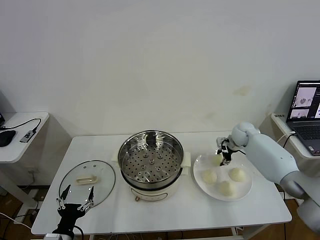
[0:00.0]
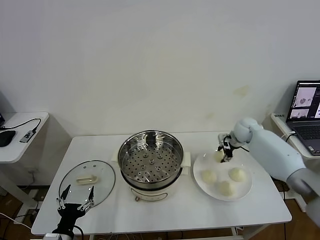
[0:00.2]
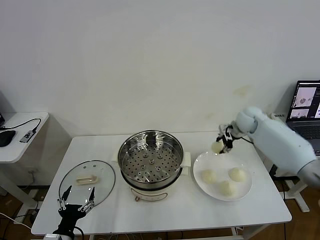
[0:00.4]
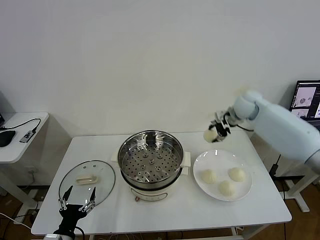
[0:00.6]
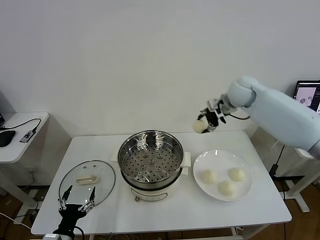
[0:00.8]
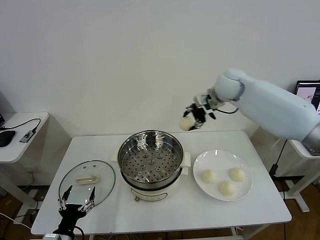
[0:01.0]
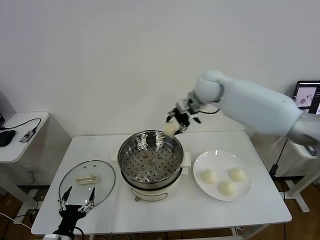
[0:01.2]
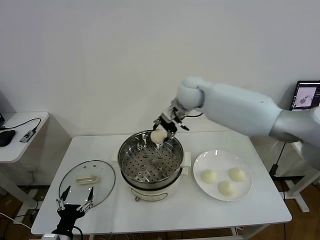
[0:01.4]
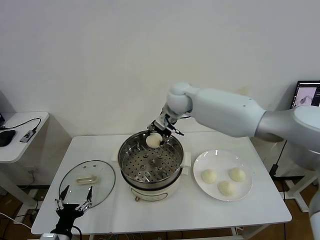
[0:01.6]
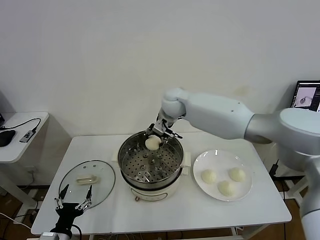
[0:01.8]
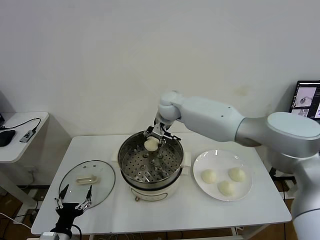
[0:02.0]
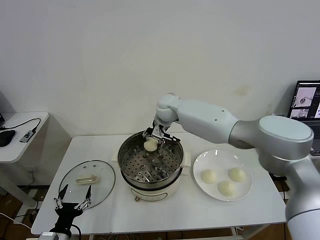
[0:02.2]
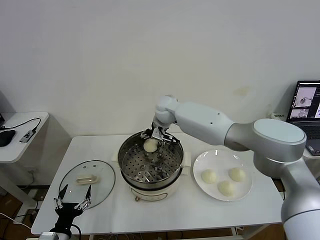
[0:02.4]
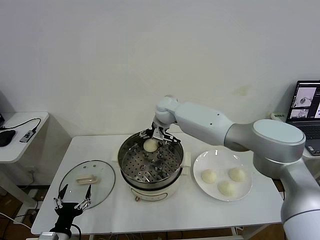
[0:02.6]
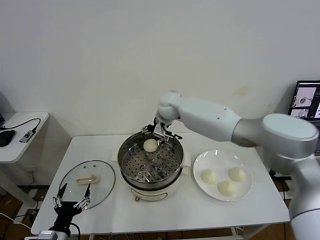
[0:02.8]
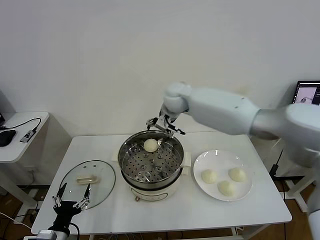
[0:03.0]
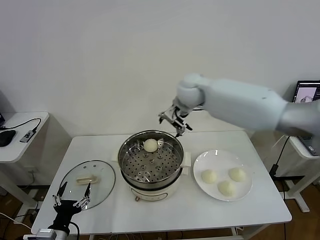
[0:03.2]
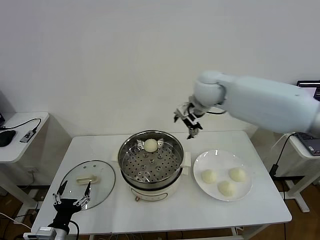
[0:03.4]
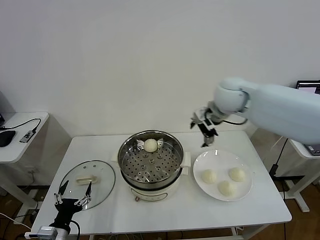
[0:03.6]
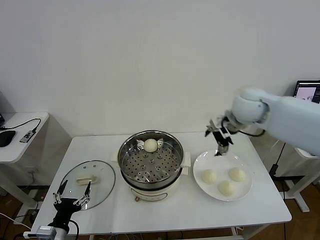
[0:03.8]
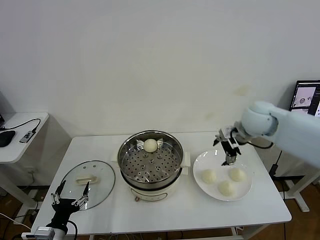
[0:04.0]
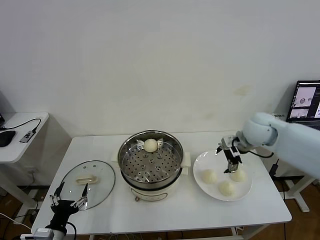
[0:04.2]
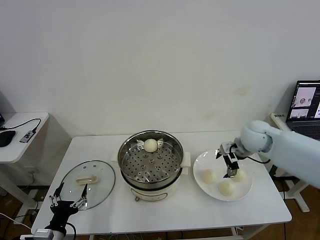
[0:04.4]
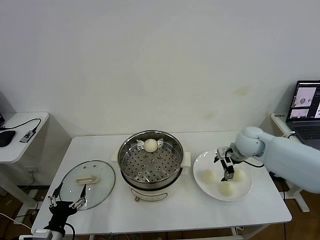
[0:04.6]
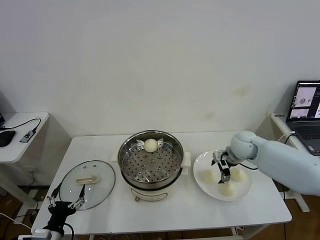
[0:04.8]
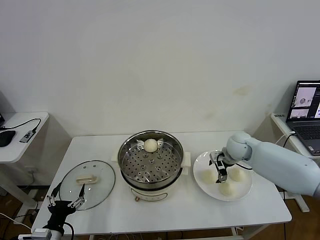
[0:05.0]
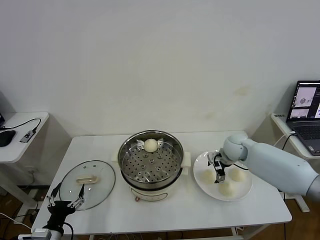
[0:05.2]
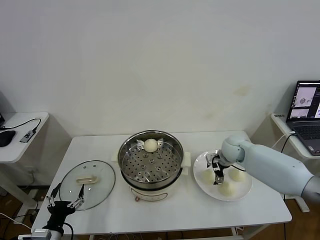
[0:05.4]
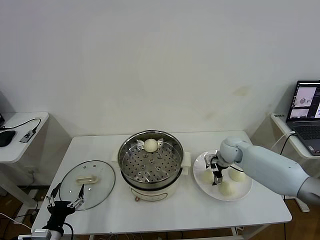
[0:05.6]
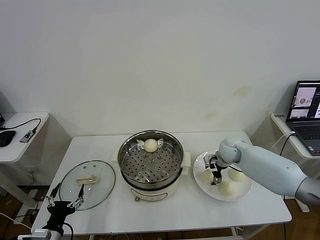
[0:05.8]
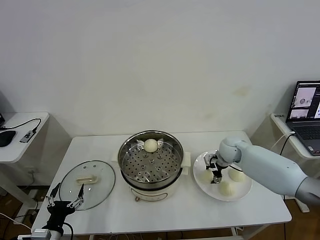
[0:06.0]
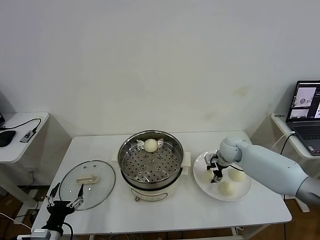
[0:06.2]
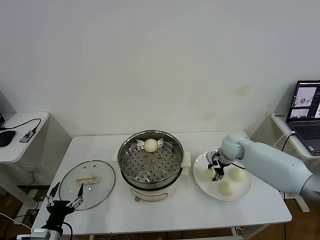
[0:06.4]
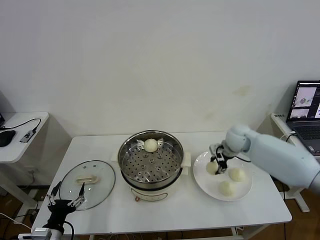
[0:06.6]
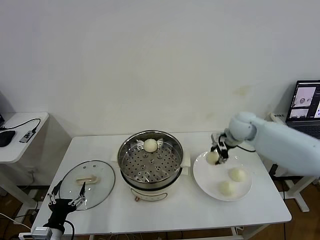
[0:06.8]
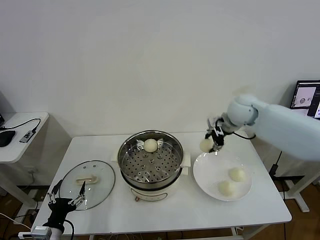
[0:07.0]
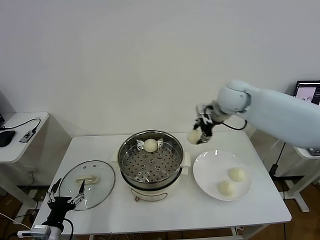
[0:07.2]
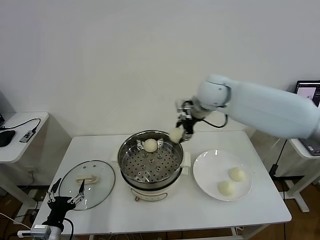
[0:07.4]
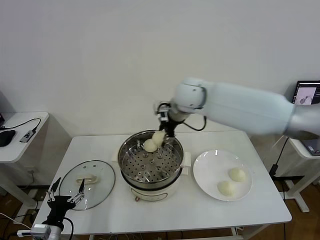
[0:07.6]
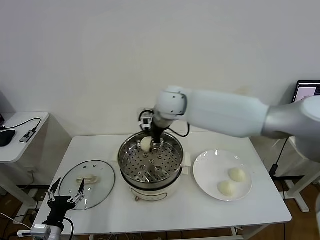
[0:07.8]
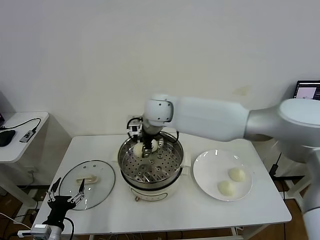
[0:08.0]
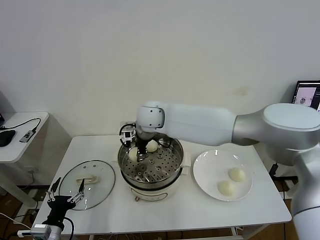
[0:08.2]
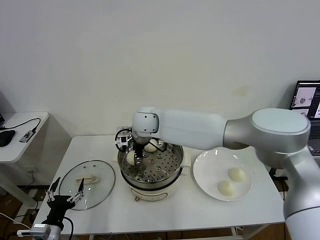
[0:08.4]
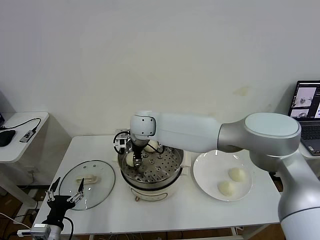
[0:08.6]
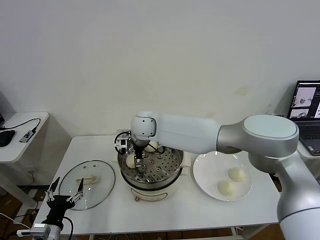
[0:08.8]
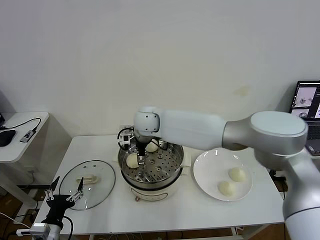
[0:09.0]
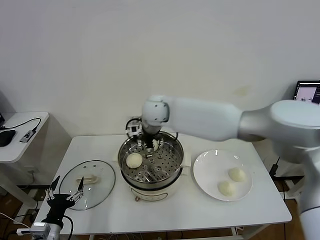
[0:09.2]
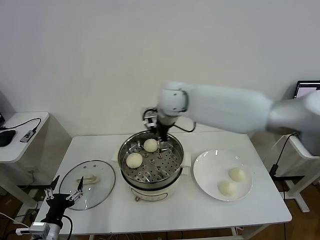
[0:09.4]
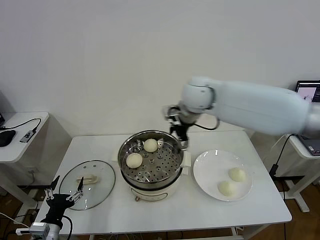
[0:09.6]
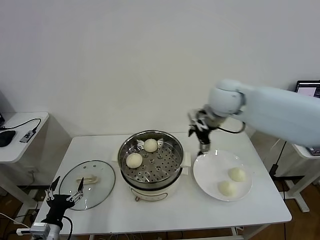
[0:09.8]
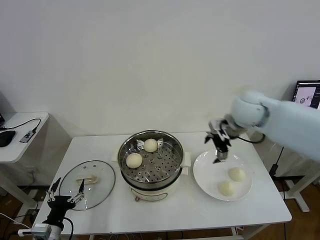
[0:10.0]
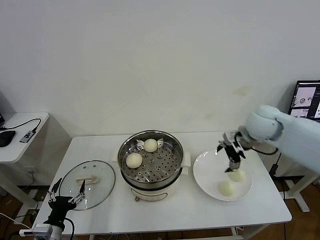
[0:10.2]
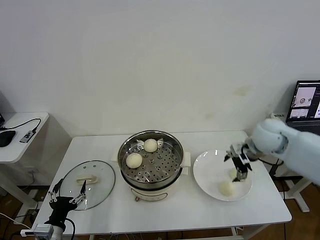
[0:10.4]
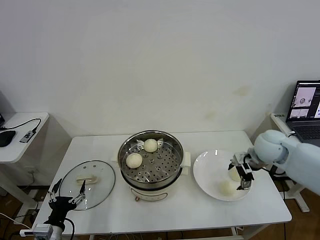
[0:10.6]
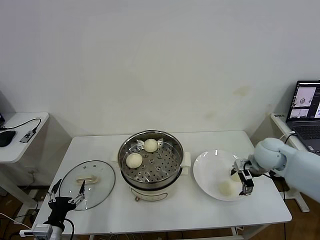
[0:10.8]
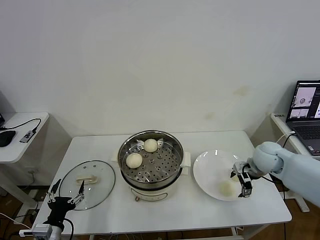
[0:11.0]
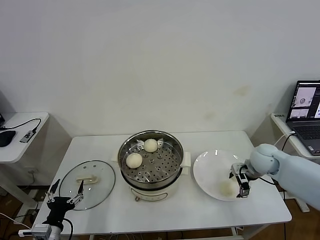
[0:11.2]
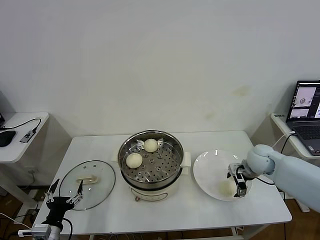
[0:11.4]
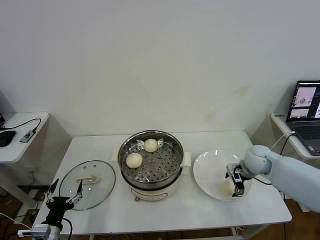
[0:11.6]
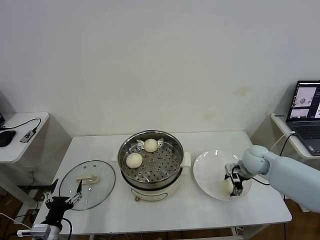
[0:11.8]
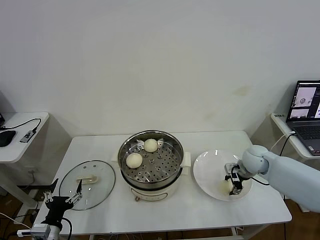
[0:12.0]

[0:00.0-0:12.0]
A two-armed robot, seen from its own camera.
Task of the whole recording: take steamed baozi put them in steamer then cover it.
Step, 0:00.0 to 0:02.6: Place the baozi on the steamer with right gripper.
Step, 0:02.8 to 0:06.2: Grasp the baozi in the plate with right gripper.
Step, 0:06.4 to 0:09.0: Place the baozi on the steamer with right gripper.
0:00.0 to 0:01.6: The right gripper shifts roughly 35 cm to the left and upward.
0:01.6 to 0:03.0: The right gripper travels downward and back again, approximately 5 cm each way, and opens its fingers.
0:03.0 to 0:04.4: The right gripper is displaced to the right and downward by approximately 25 cm.
0:04.4 to 0:06.0: The right gripper travels downward by approximately 10 cm, and closes.
0:06.0 to 0:07.6: The right gripper is displaced upward and to the left by some 30 cm.
0:07.6 to 0:09.0: The right gripper moves to the left and downward, about 10 cm, and opens its fingers.
0:09.0 to 0:10.4: The right gripper heads to the right, covering some 35 cm.
0:10.4 to 0:12.0: The right gripper heads downward, covering some 10 cm, and closes its fingers.

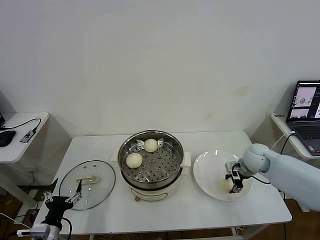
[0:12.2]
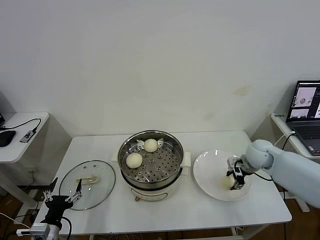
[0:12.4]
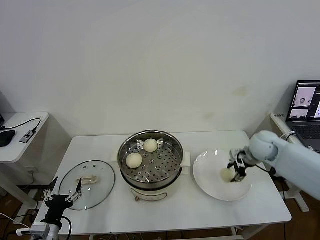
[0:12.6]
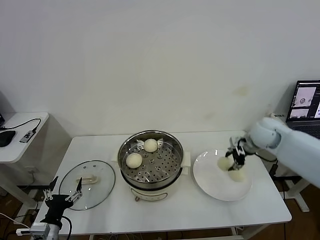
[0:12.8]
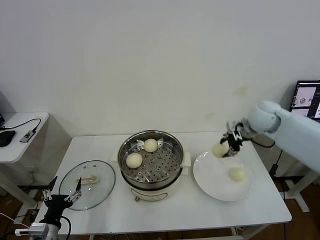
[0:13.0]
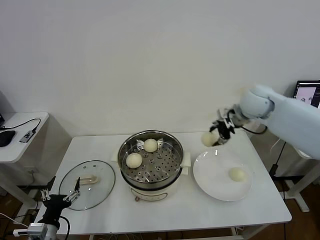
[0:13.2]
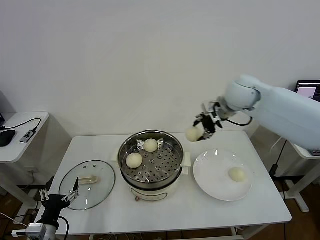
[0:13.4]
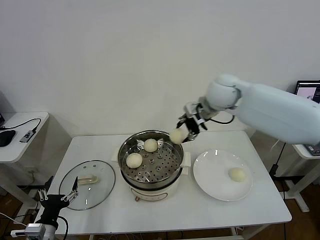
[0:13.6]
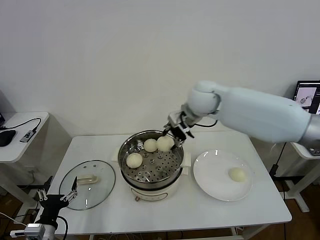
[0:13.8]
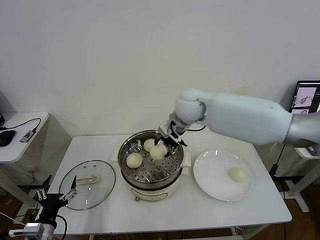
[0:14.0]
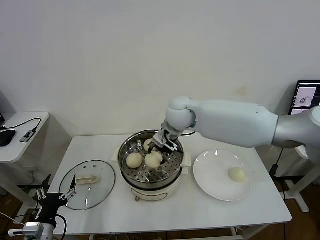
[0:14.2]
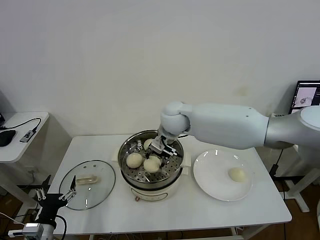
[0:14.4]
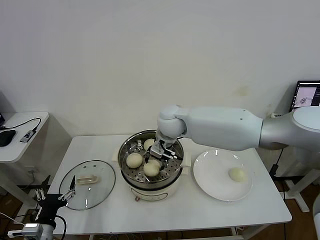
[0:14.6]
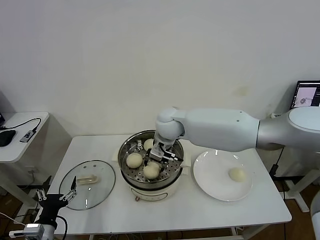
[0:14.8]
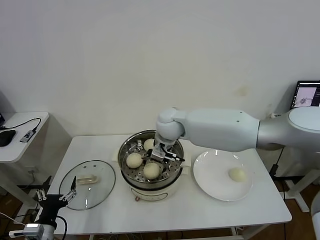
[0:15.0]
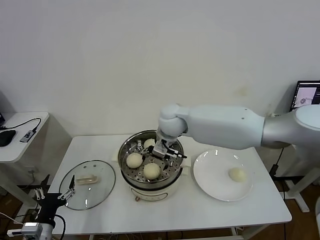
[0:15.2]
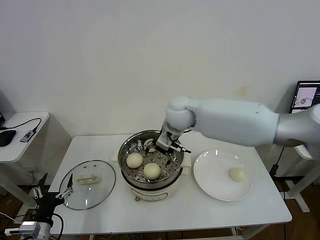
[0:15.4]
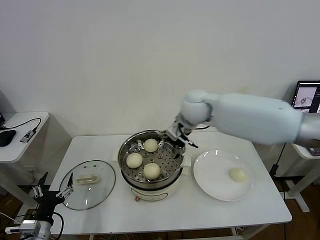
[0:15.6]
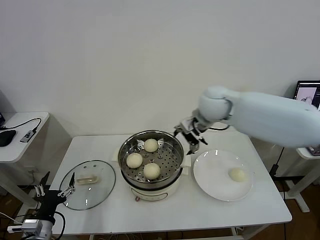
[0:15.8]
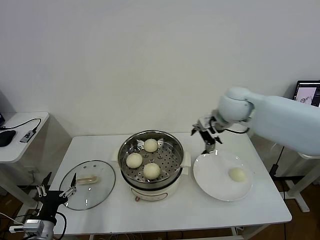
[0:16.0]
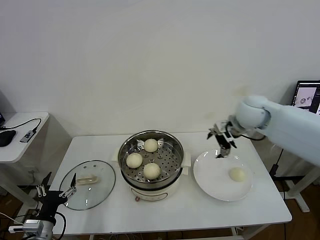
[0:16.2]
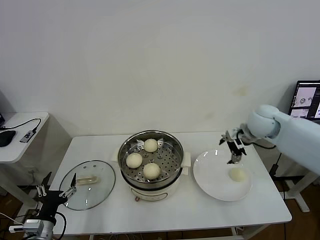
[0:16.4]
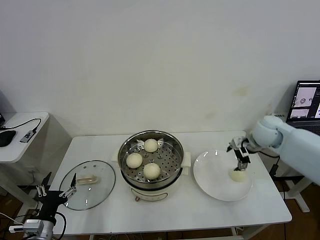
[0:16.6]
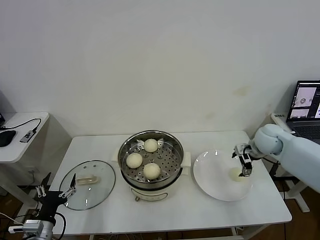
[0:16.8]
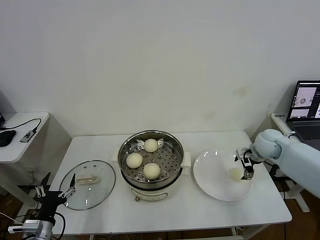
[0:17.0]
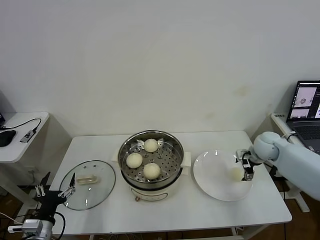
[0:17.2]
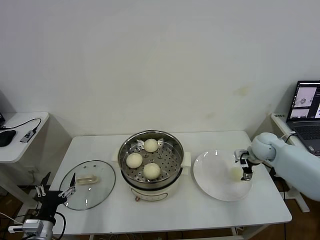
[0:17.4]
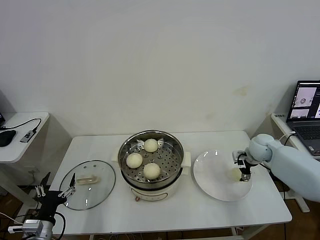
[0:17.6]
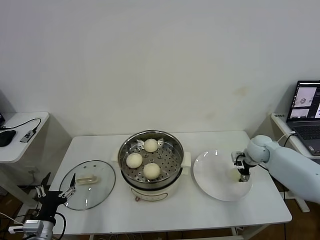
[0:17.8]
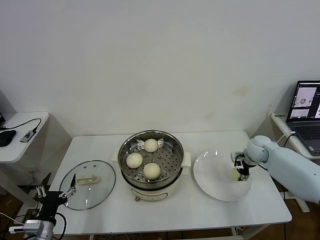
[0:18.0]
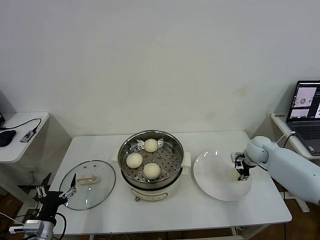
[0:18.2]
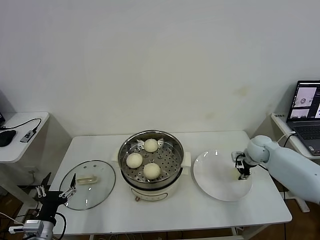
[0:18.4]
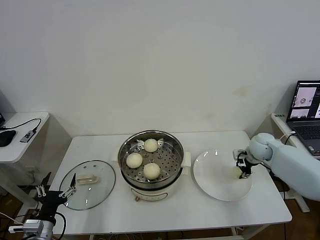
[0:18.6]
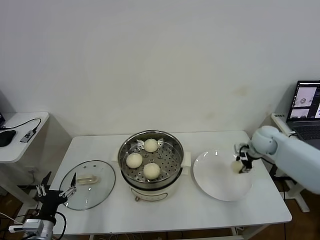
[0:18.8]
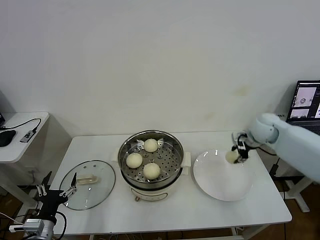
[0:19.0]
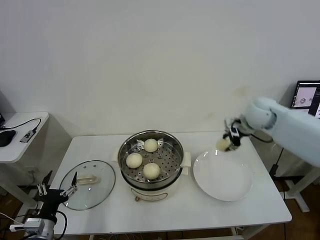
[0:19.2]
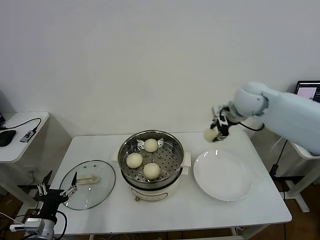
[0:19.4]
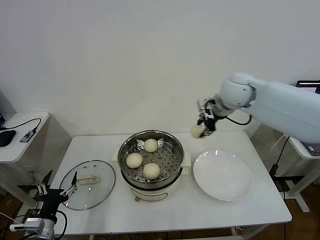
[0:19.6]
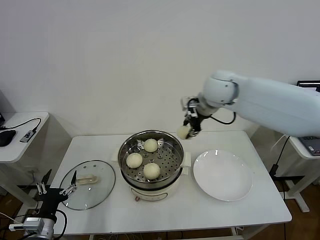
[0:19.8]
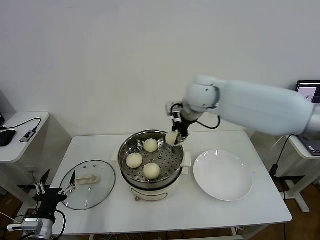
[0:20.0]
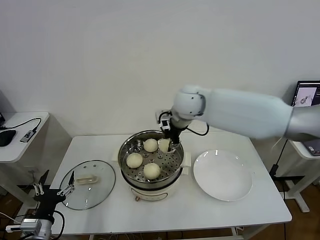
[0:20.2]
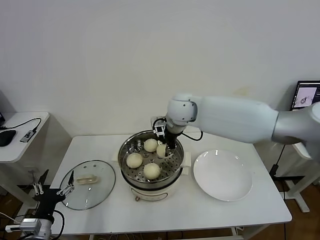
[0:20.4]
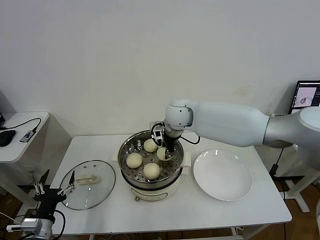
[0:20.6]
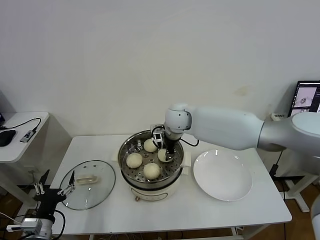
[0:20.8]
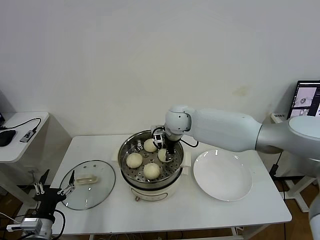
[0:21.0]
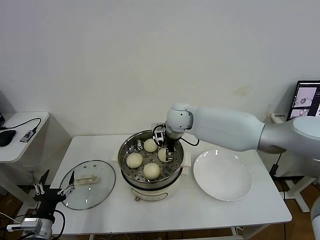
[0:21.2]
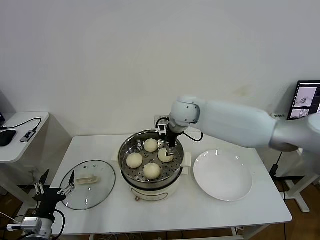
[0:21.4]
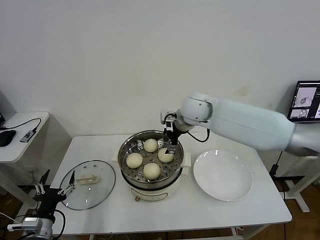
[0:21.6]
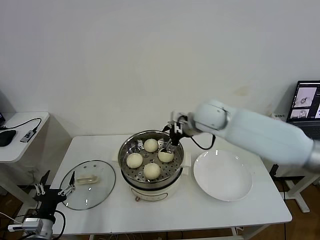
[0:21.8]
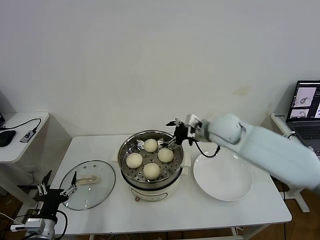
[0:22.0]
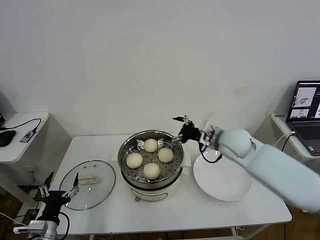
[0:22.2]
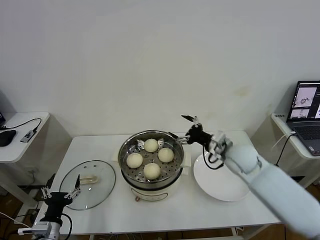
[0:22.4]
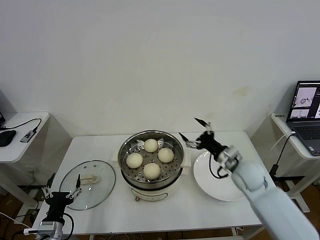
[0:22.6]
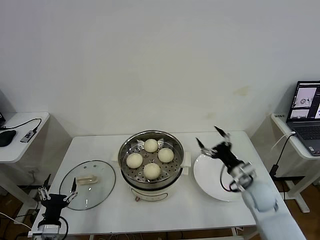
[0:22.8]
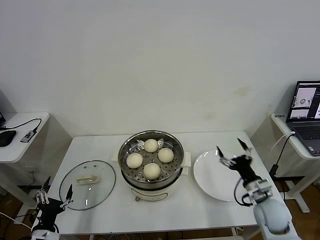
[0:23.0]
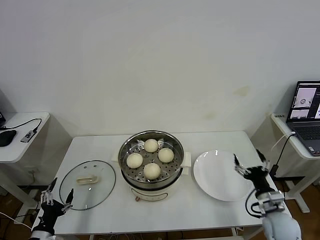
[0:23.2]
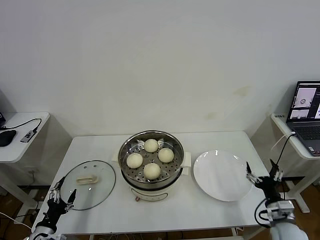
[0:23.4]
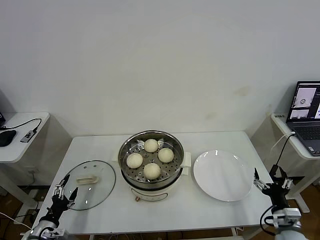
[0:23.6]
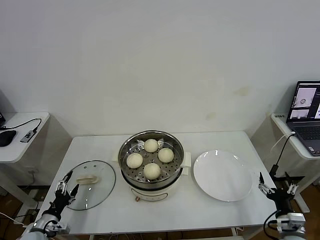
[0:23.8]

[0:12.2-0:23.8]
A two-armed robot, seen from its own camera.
Task of the whole recording: take steamed baozi put them in steamer then cover it.
Step, 0:12.4 to 0:15.4: Place the baozi on the steamer with right gripper.
Step, 0:15.6 to 0:18.6: Grasp the baozi in the plate with right gripper.
Step, 0:18.8 to 0:21.4: Place the baozi on the steamer with right gripper.
0:12.2 to 0:13.6: The right gripper moves upward and to the left, roughly 30 cm.
0:13.6 to 0:15.0: The right gripper shifts some 15 cm to the left and downward, and opens its fingers.
0:15.0 to 0:16.6: The right gripper is displaced to the right by some 30 cm.
0:16.6 to 0:18.0: The right gripper shifts roughly 10 cm downward, and closes up.
0:18.0 to 0:19.4: The right gripper goes some 25 cm upward and to the left, and closes up.
0:19.4 to 0:21.0: The right gripper shifts some 20 cm to the left and downward.
0:21.0 to 0:22.4: The right gripper moves to the right and backward, approximately 20 cm, and opens its fingers.
0:22.4 to 0:23.8: The left gripper heads to the left and downward, covering approximately 10 cm. The right gripper heads backward, downward and to the right, covering approximately 30 cm.
